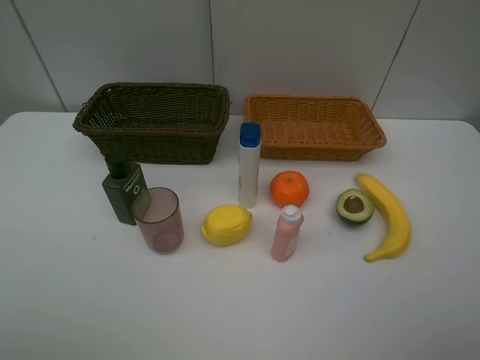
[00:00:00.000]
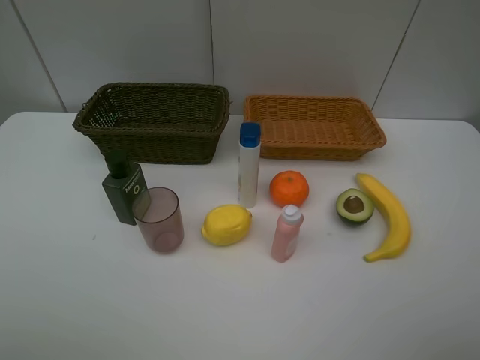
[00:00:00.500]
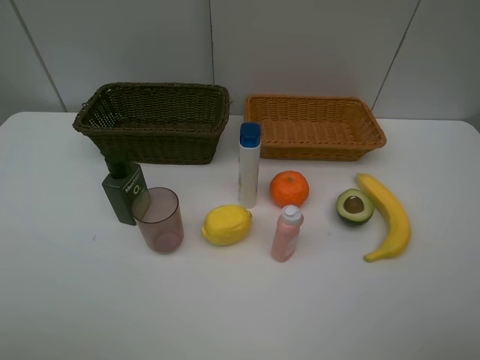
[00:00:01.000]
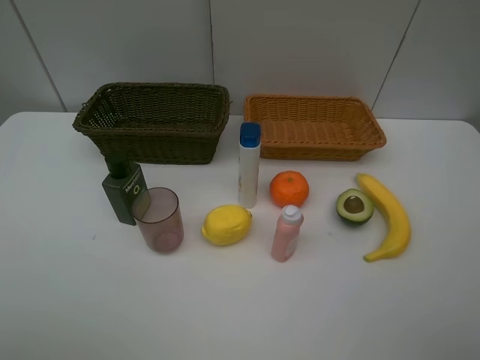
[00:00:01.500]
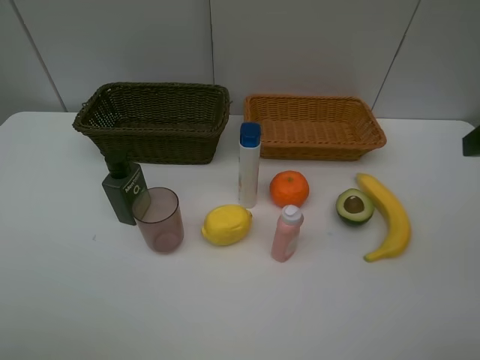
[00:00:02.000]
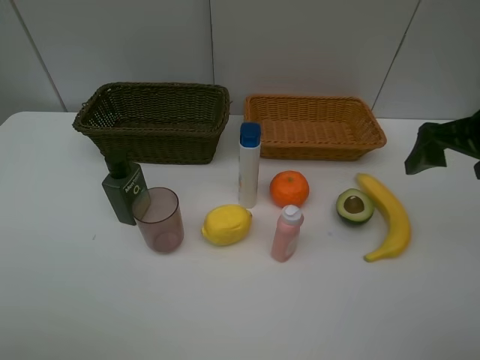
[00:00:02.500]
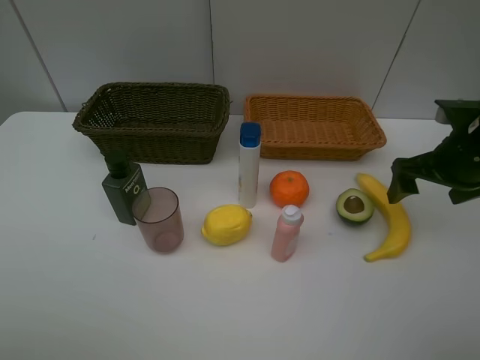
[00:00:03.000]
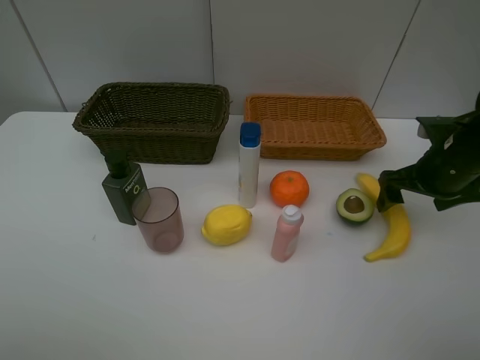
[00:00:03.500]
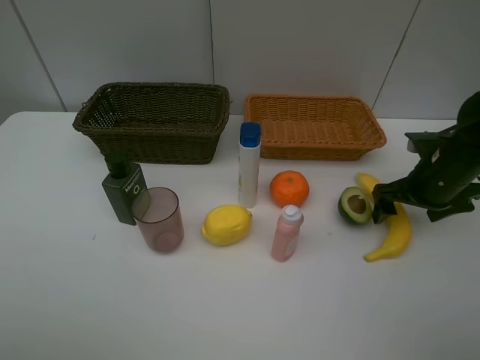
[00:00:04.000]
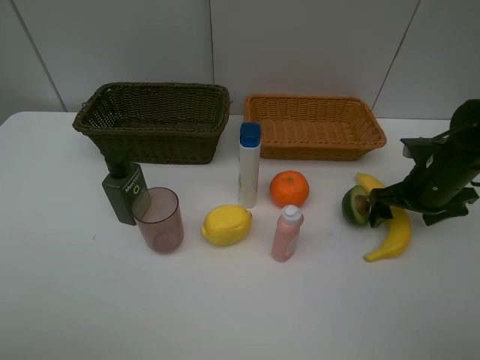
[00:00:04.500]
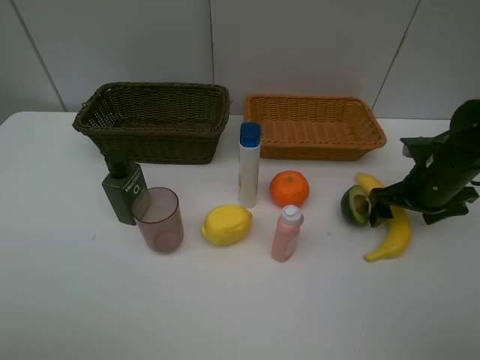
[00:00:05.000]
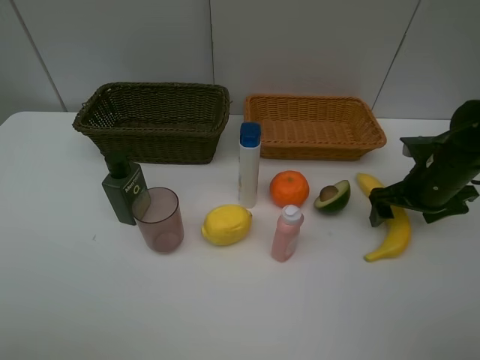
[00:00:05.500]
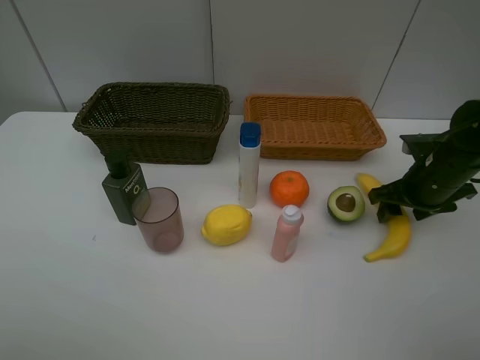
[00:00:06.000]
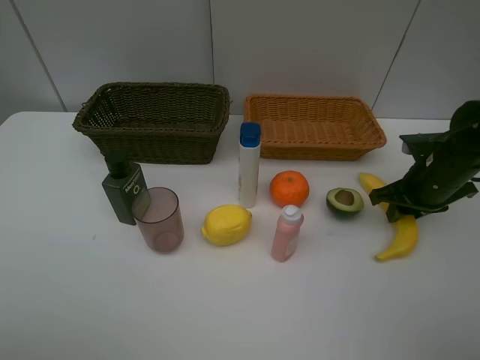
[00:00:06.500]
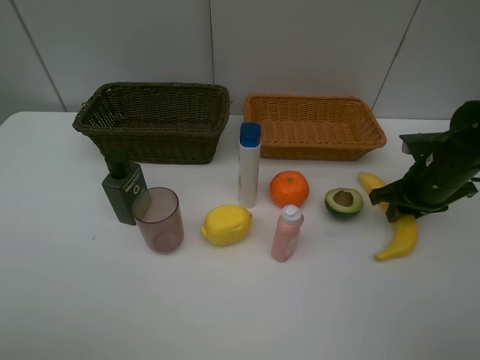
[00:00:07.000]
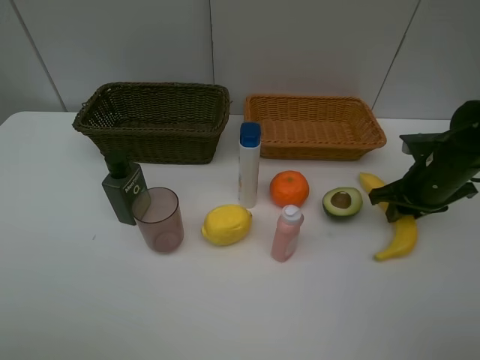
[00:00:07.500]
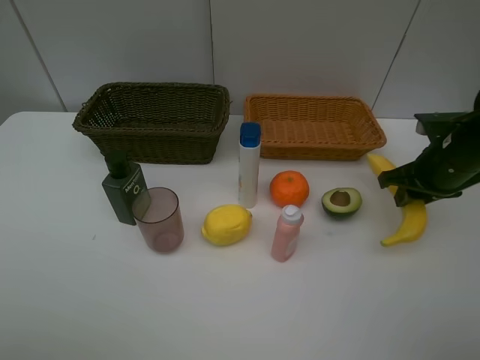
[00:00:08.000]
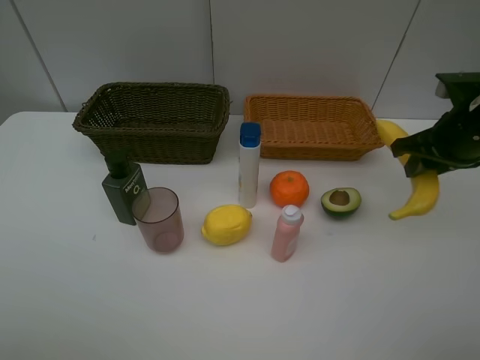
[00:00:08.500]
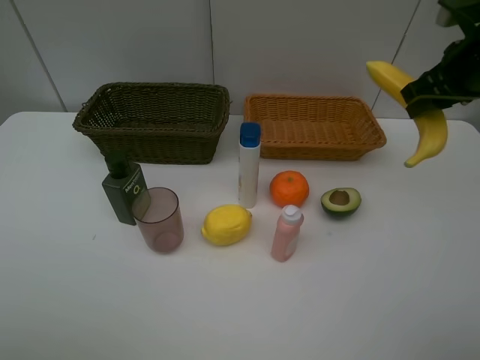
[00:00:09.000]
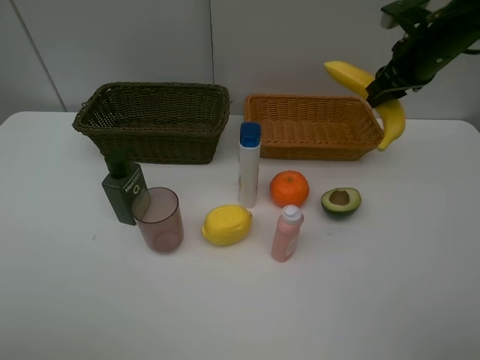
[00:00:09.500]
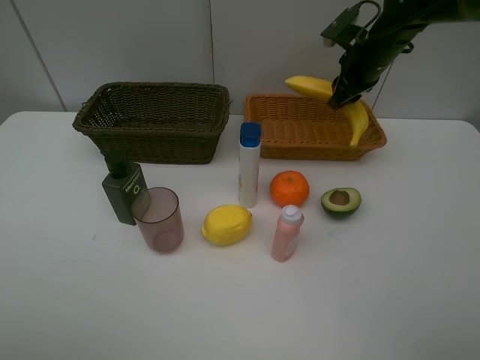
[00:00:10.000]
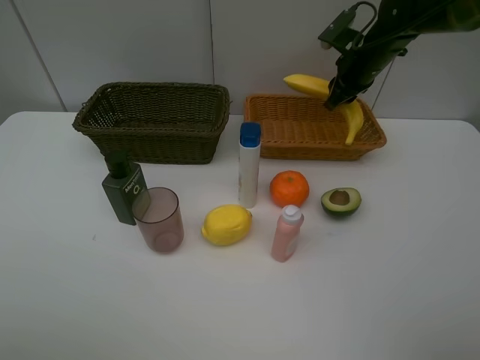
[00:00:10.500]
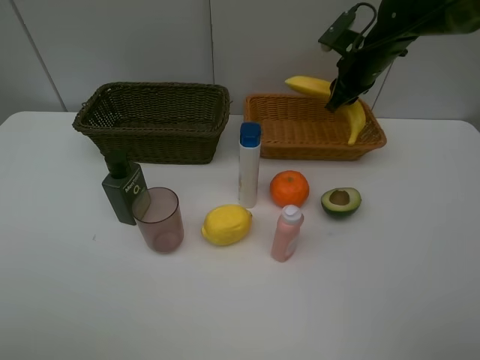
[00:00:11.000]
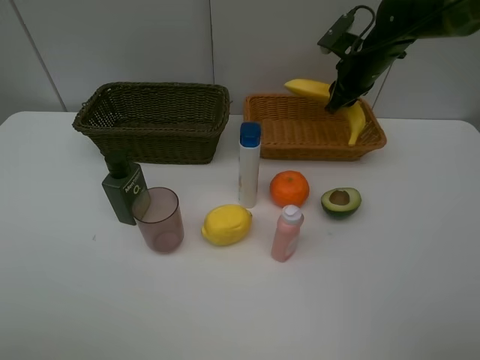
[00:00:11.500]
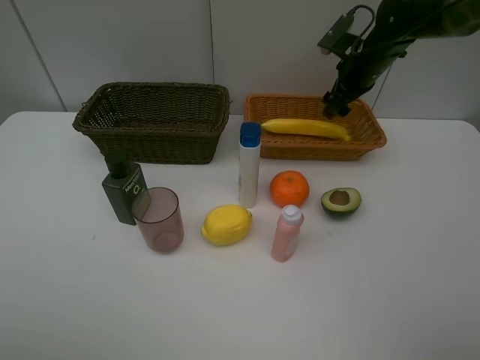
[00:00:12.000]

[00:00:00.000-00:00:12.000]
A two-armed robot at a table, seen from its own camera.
Task of the whole recording: Place multiple objects separately in different baskets.
Step, 00:00:00.000 to 00:00:07.500: Pick up banana with right gripper.
00:00:02.000 to 00:00:04.000: The right gripper travels downward and forward by approximately 25 cm.
00:00:04.000 to 00:00:06.000: The right gripper closes.
00:00:06.000 to 00:00:08.000: The right gripper closes its fingers.
00:00:08.000 to 00:00:10.000: The right gripper is displaced forward and to the left by some 20 cm.
00:00:10.000 to 00:00:12.000: The right gripper opens its fingers.

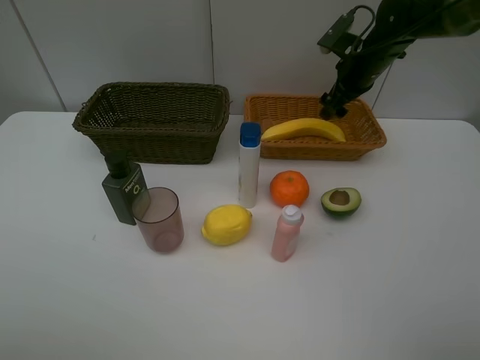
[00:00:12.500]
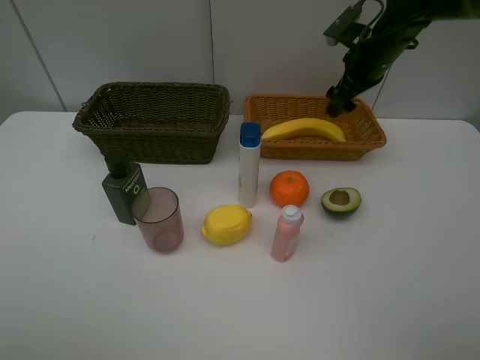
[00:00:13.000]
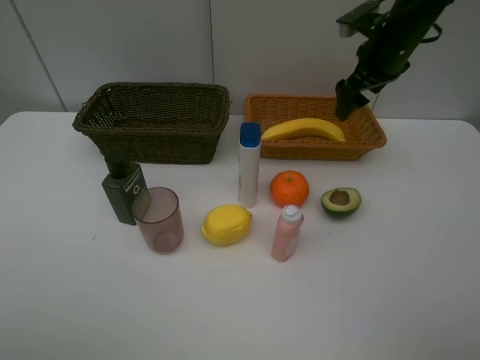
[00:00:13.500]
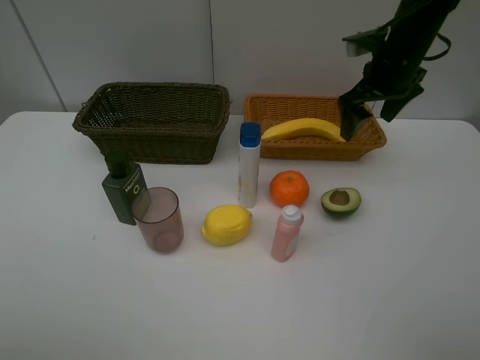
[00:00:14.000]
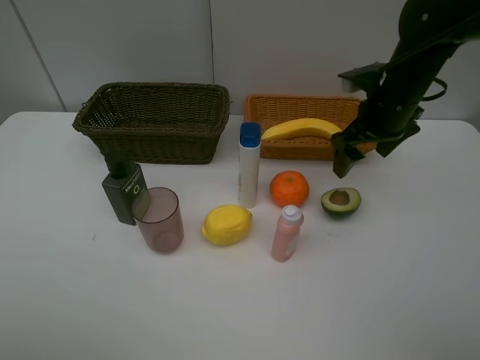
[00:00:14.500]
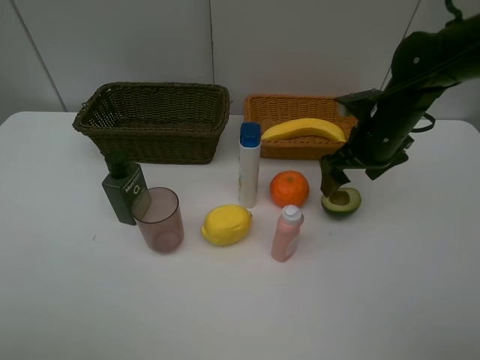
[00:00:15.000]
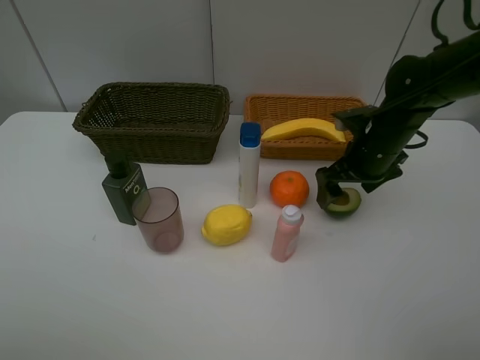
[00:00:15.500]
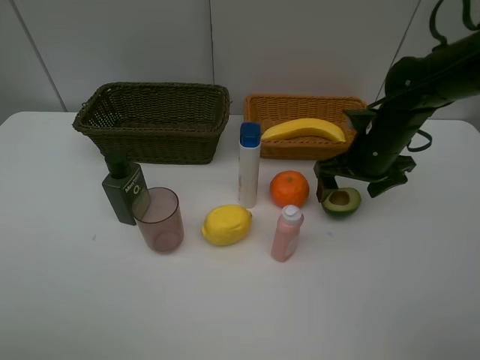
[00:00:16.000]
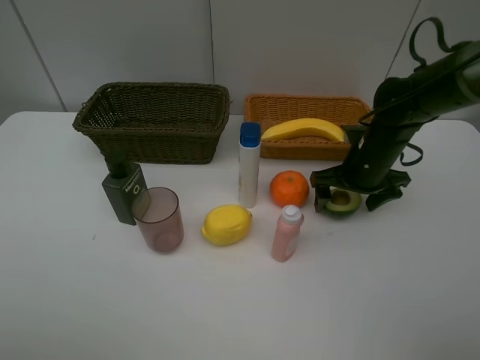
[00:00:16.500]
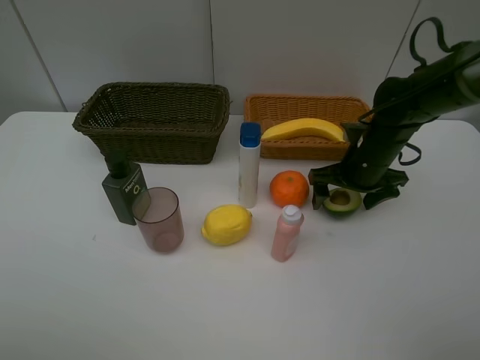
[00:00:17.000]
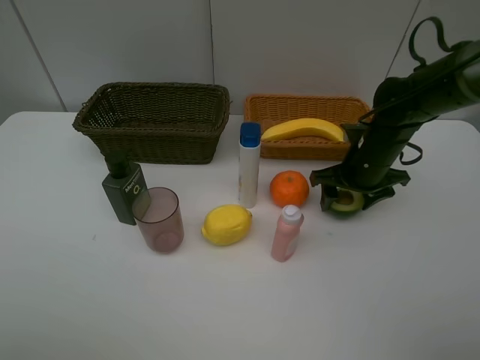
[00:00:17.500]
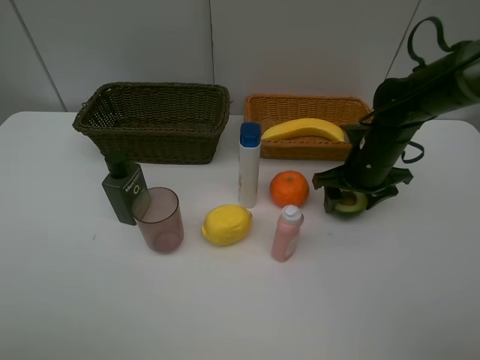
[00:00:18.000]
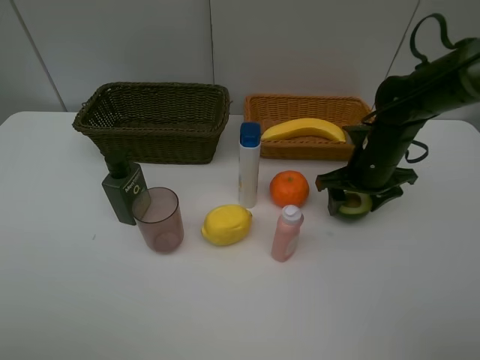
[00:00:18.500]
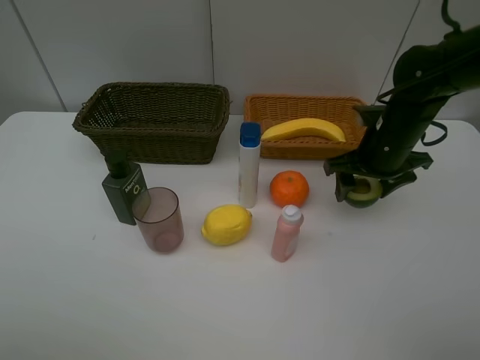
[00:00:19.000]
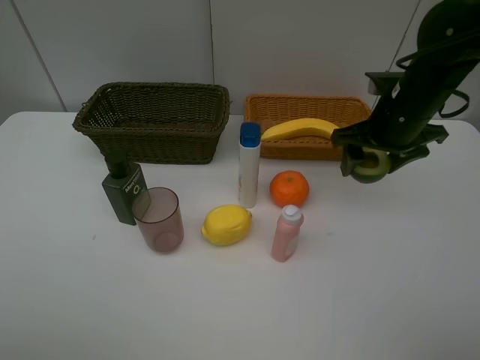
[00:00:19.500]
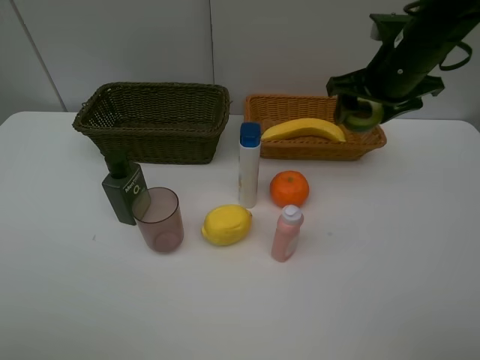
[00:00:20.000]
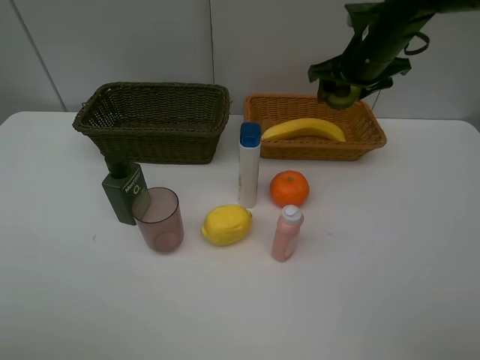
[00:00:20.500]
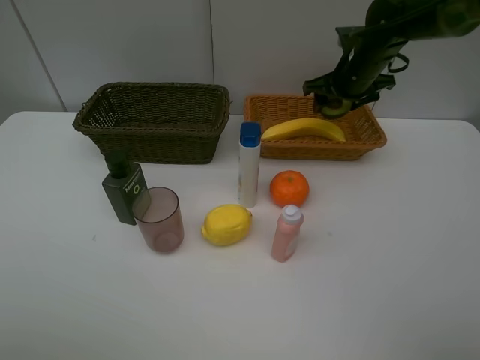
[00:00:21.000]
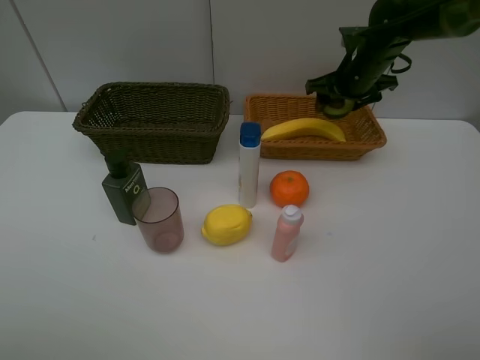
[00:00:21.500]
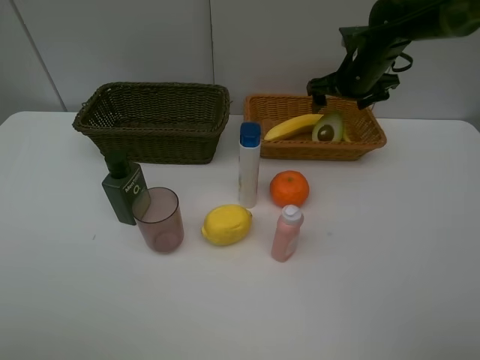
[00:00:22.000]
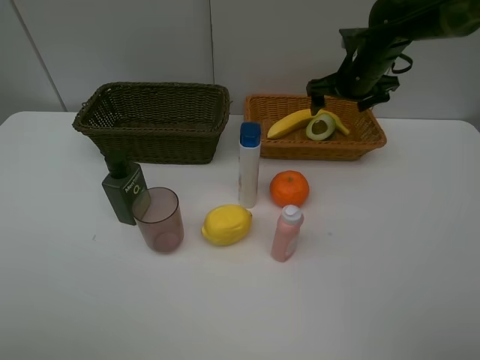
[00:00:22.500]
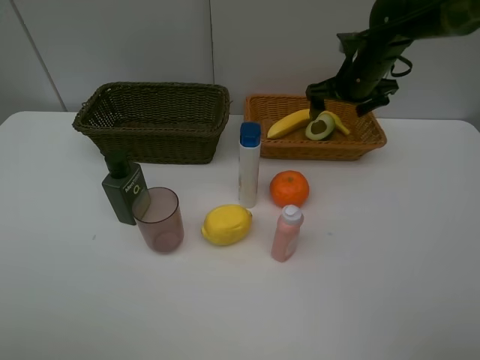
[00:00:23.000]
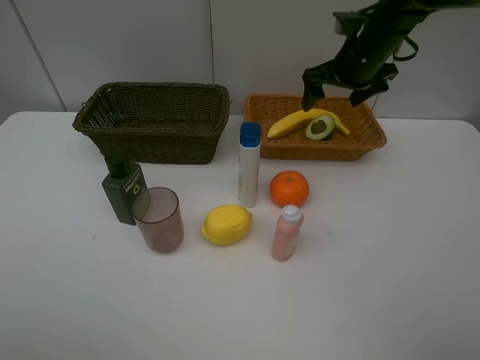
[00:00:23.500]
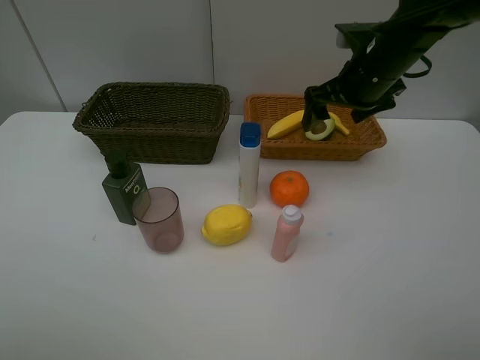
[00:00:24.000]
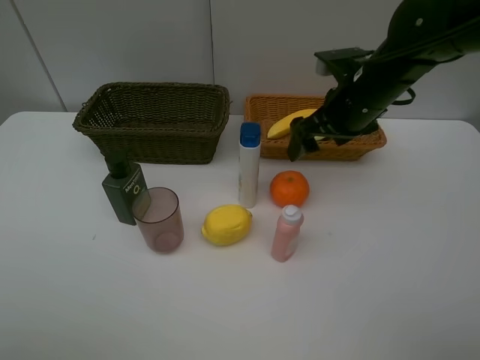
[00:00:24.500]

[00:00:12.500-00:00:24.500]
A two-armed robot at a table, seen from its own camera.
Task of the whole recording: Place multiple objects separately in different baskets.
Step, 00:00:12.500 to 00:00:18.500: Pick up the avocado with right gripper.
Step, 00:00:19.000 to 00:00:22.000: Place the avocado in the light basket with right gripper.
00:00:12.500 to 00:00:14.500: The right gripper is displaced backward by approximately 10 cm.
00:00:14.500 to 00:00:16.500: The right gripper shifts some 10 cm downward.
00:00:16.500 to 00:00:18.500: The right gripper closes its fingers.
00:00:18.500 to 00:00:20.500: The right gripper heads upward and forward, covering approximately 15 cm.
00:00:20.500 to 00:00:22.500: The right gripper moves about 5 cm, and opens its fingers.
00:00:22.500 to 00:00:24.500: The right gripper shifts some 10 cm backward.

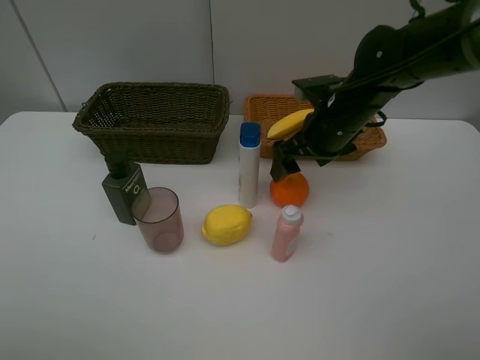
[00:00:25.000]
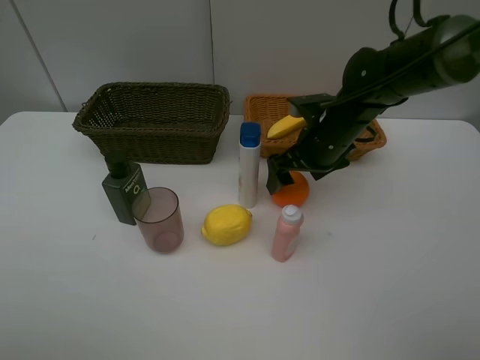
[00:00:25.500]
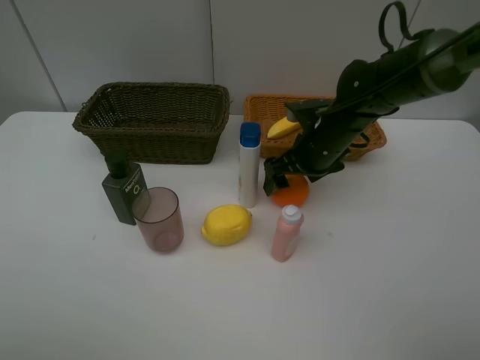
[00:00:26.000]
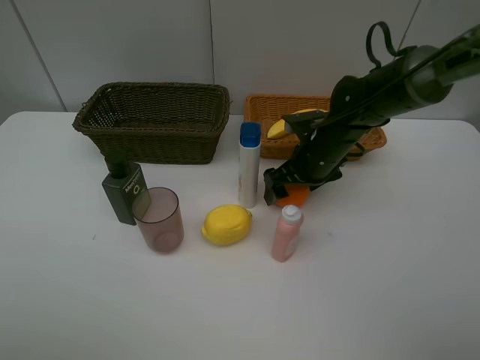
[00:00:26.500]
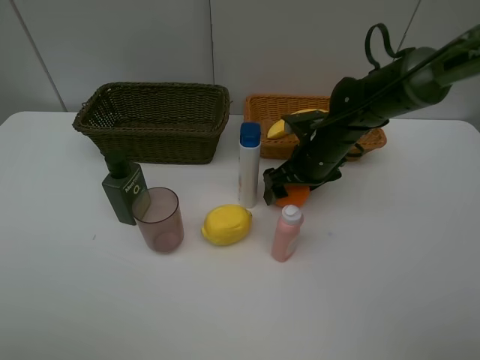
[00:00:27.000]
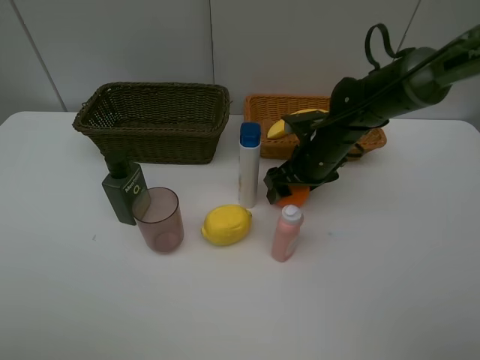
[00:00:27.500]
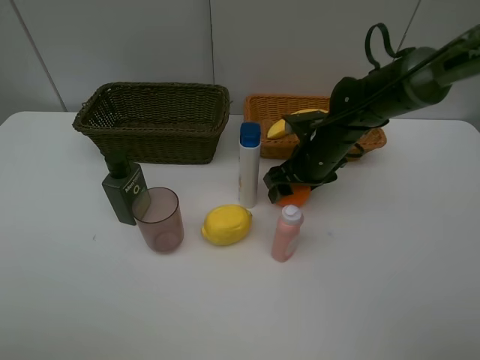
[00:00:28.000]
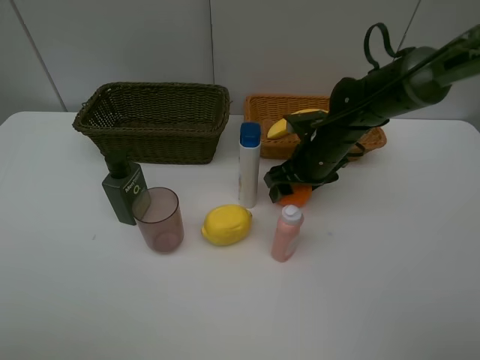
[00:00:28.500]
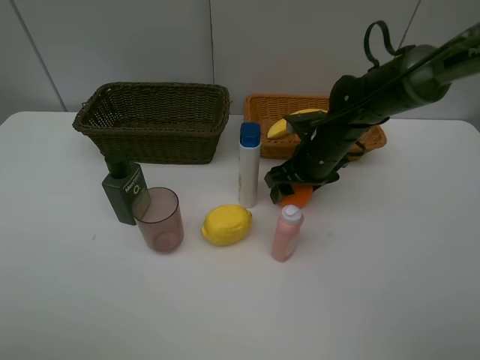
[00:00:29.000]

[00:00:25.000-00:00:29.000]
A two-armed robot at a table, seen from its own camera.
Task of the whole recording: Place multiple objects separately in different baskets.
00:00:25.000 to 00:00:27.000: The right gripper goes approximately 5 cm downward.
00:00:27.000 to 00:00:29.000: The right gripper closes its fingers.
